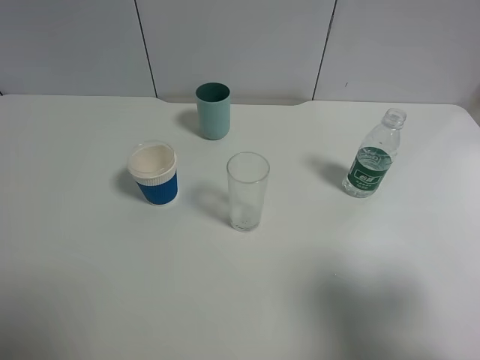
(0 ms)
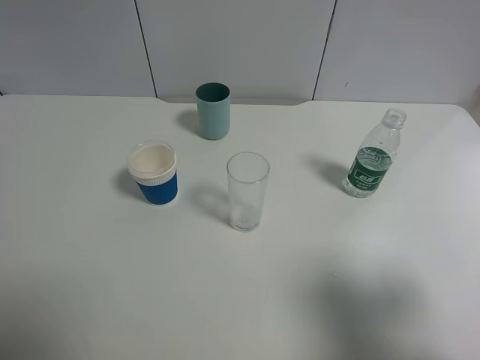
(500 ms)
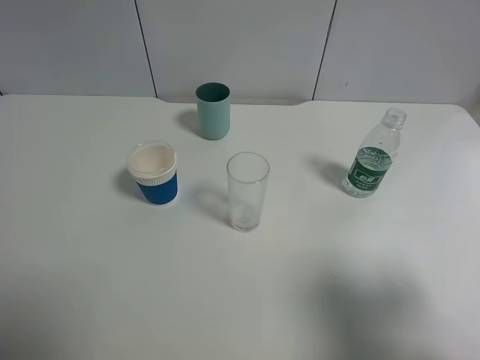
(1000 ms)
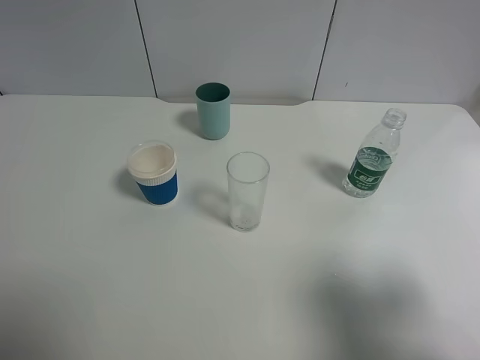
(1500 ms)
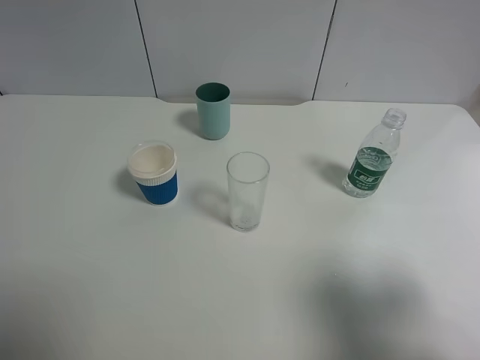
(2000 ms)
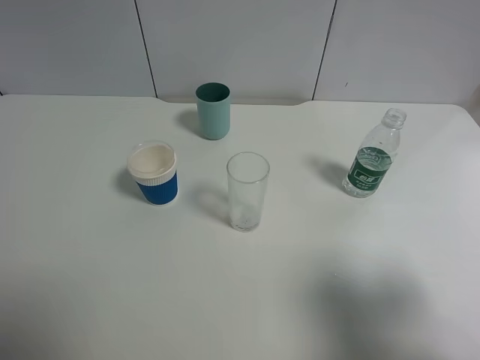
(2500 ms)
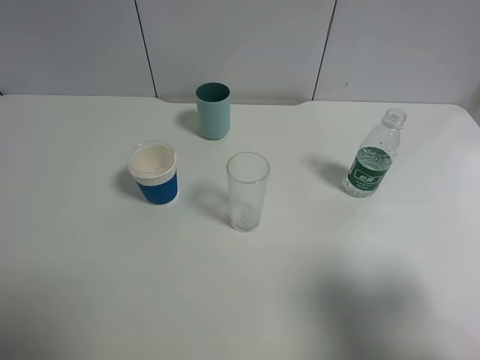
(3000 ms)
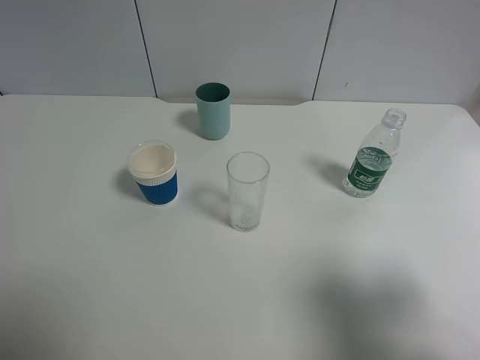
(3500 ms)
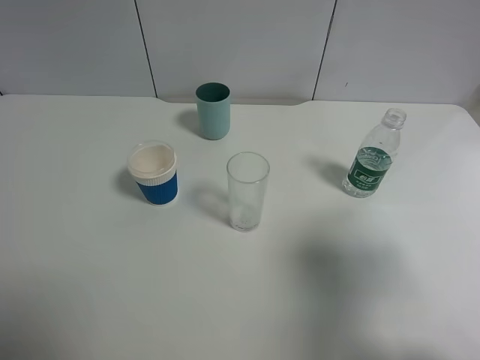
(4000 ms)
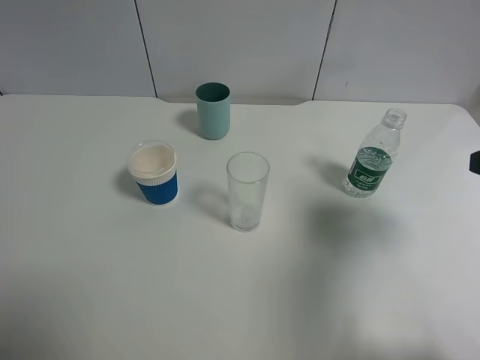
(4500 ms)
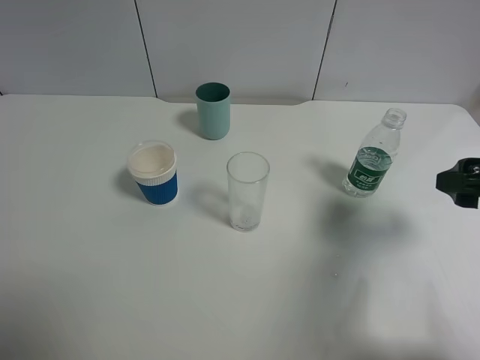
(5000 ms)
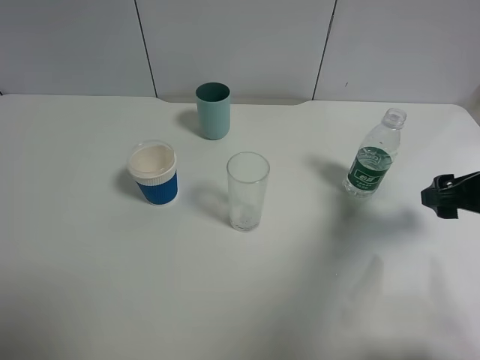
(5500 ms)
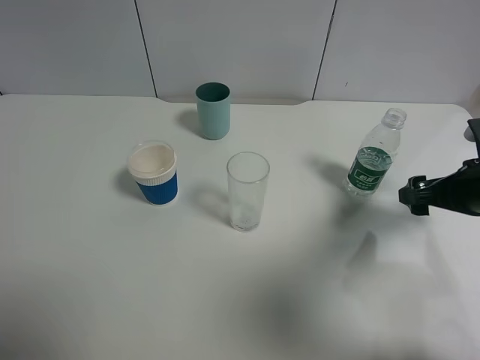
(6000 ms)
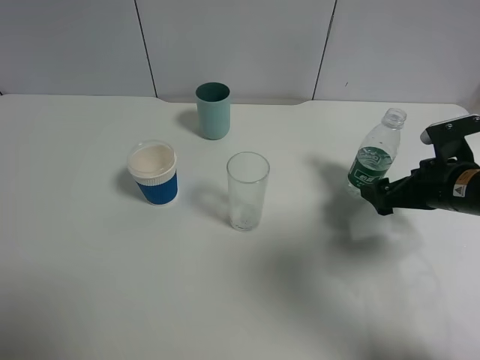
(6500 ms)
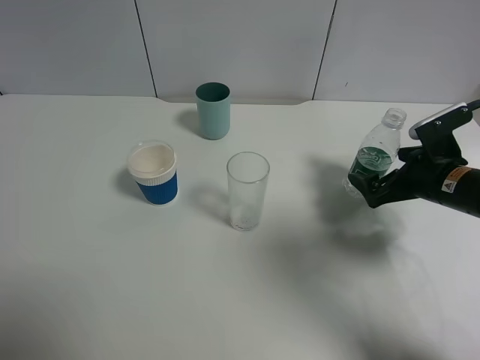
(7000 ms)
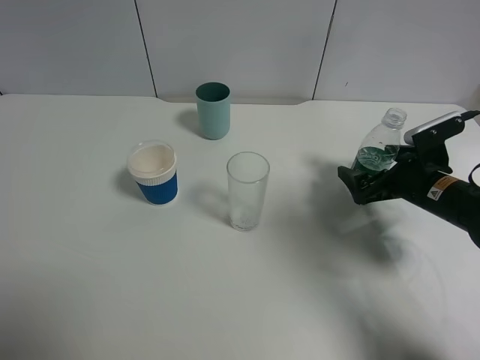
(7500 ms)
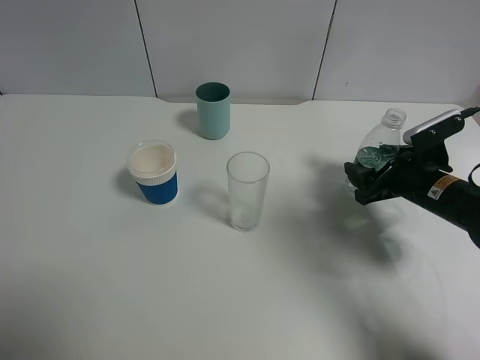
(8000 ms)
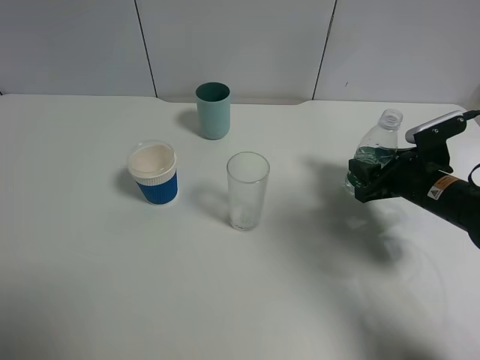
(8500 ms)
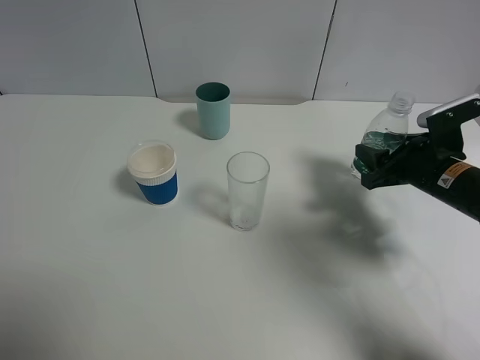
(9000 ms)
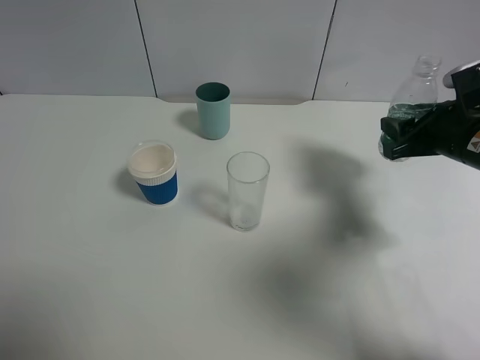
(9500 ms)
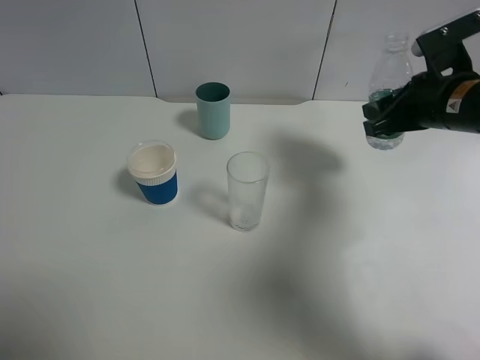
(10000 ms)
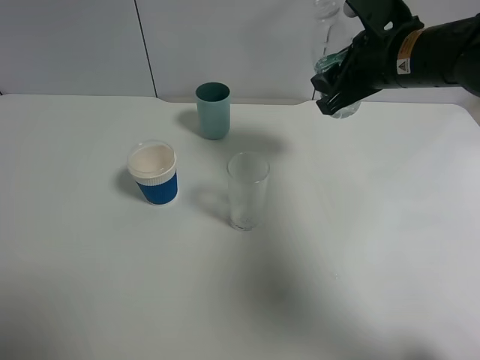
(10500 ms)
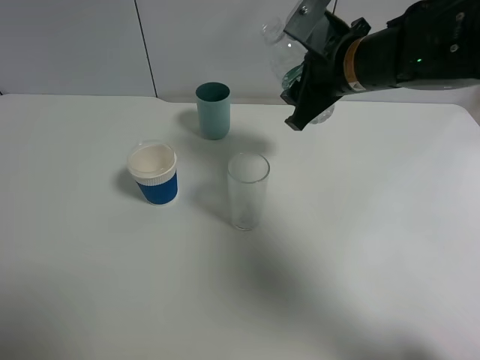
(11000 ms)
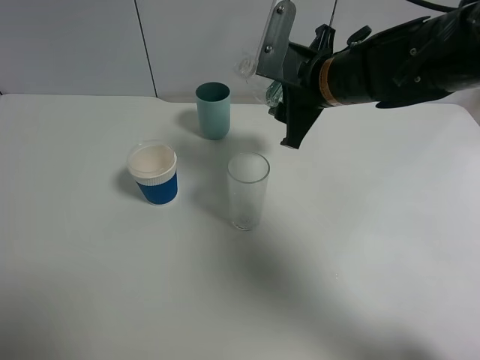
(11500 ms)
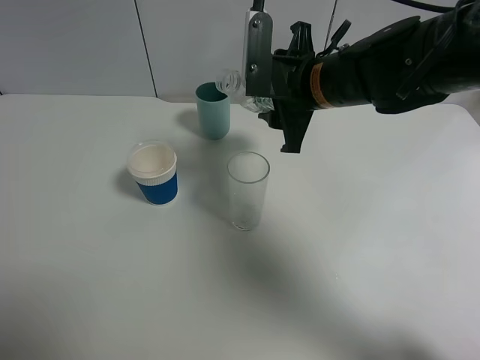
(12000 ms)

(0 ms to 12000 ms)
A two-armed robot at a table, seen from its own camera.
Task of the whole recording: use a gripper to hold the bottle of the drink and pour it into a random cup.
Step, 0 ms - 8000 ms: Grasp the mineral water bottle with the right gripper.
0 ms - 2000 ms: Neither gripper changes place.
2000 ms - 4000 ms: The right gripper goes roughly 5 cm forward.
4000 ms - 6000 ms: The right gripper shifts approximately 20 cm forward and downward.
6000 ms - 8000 ms: The right gripper travels downward by approximately 5 cm, and closes its fingers.
8000 ms - 10000 ms: The right gripper moves upward, some 15 cm.
10000 ms - 12000 ms: The right gripper moves to the left, approximately 15 cm.

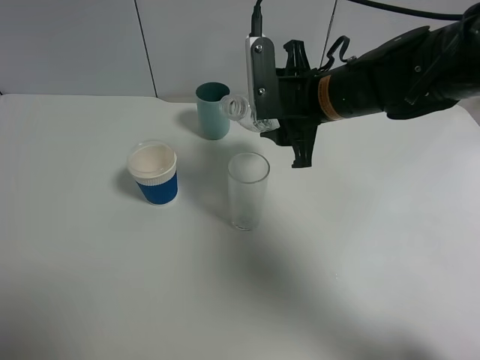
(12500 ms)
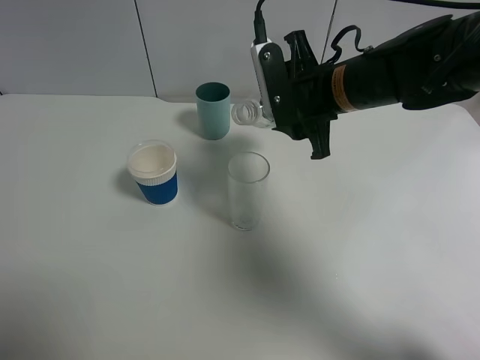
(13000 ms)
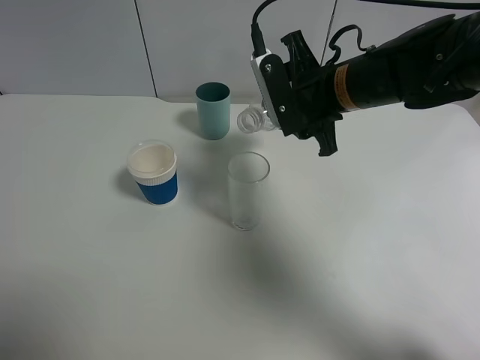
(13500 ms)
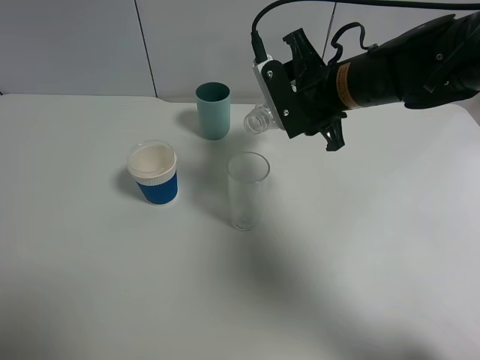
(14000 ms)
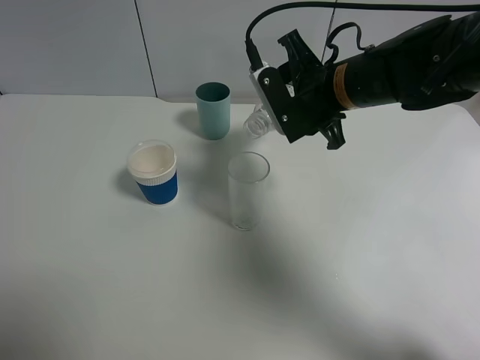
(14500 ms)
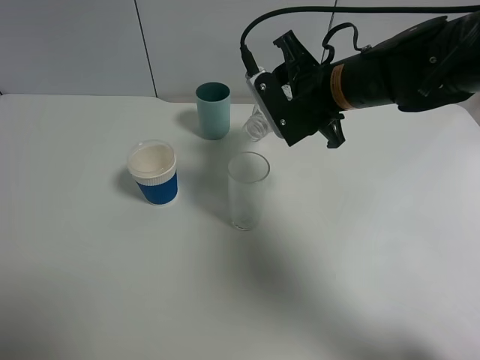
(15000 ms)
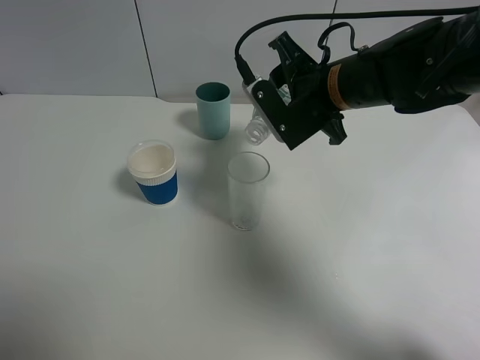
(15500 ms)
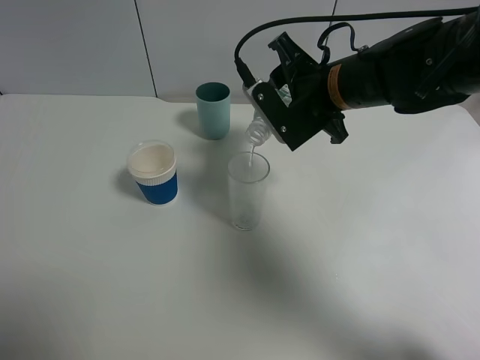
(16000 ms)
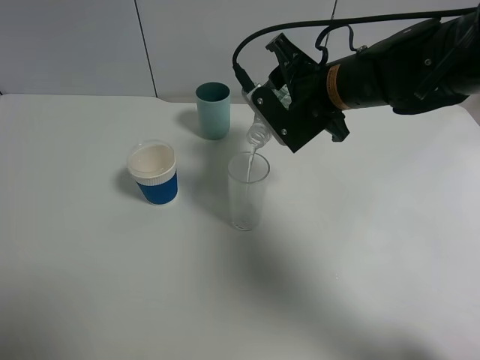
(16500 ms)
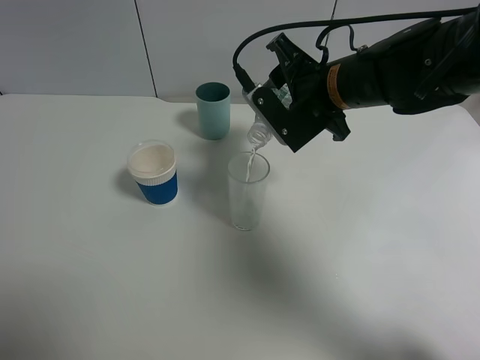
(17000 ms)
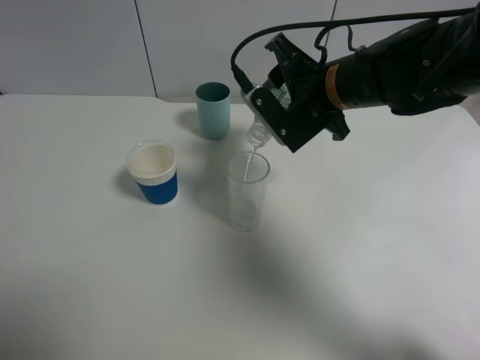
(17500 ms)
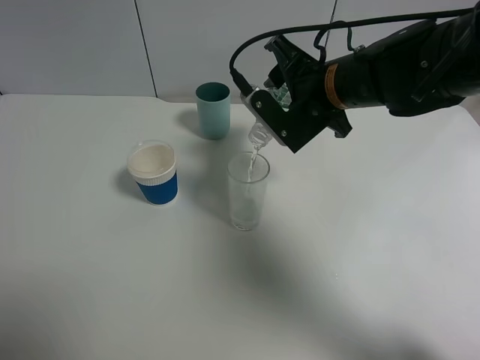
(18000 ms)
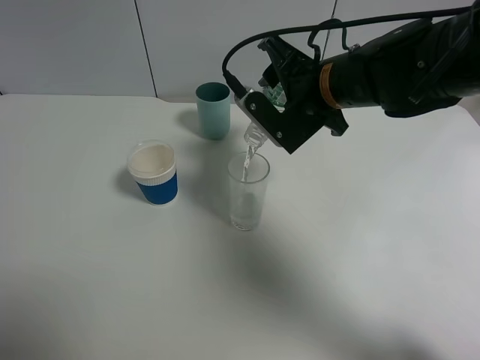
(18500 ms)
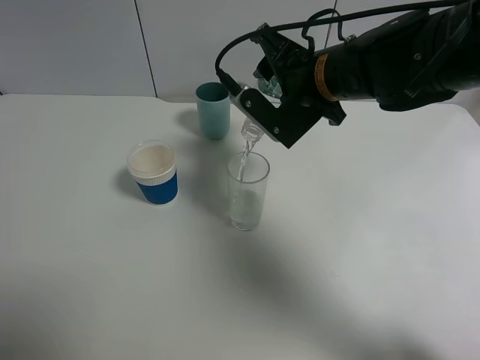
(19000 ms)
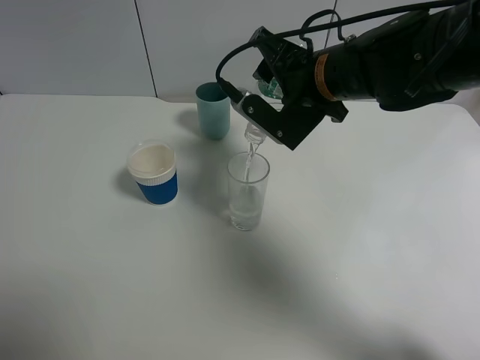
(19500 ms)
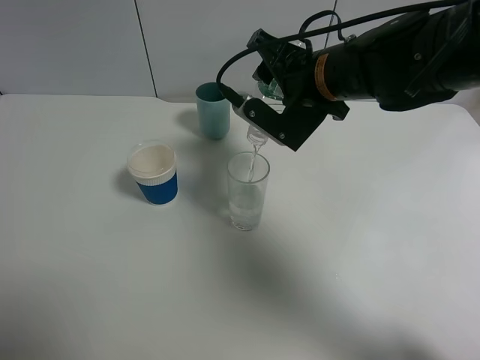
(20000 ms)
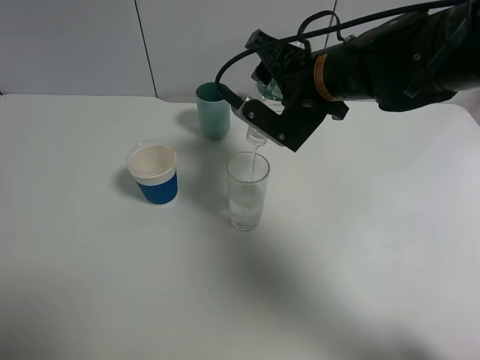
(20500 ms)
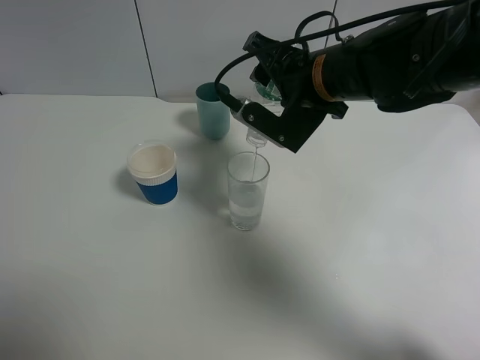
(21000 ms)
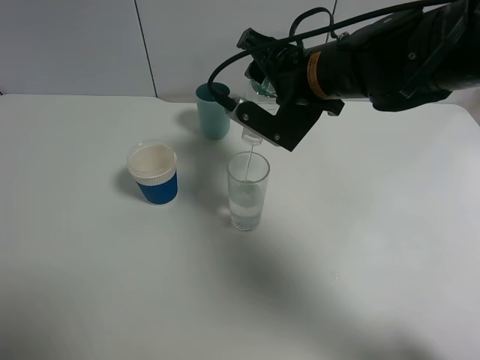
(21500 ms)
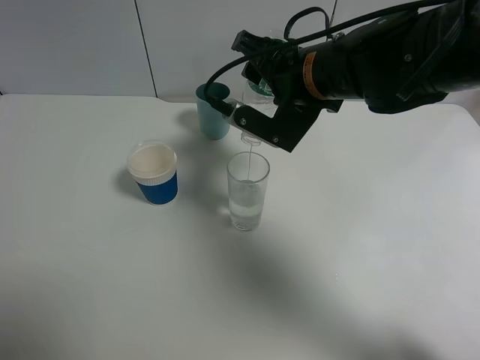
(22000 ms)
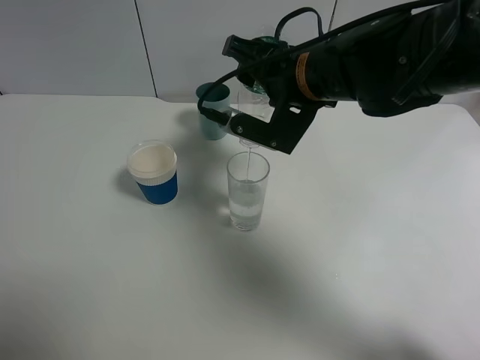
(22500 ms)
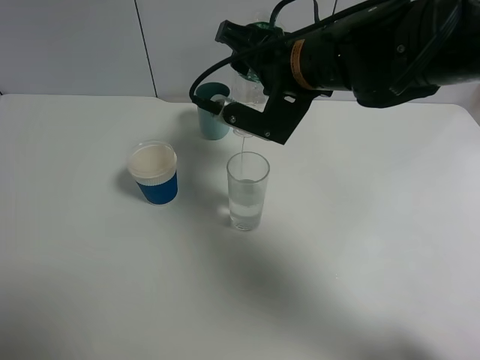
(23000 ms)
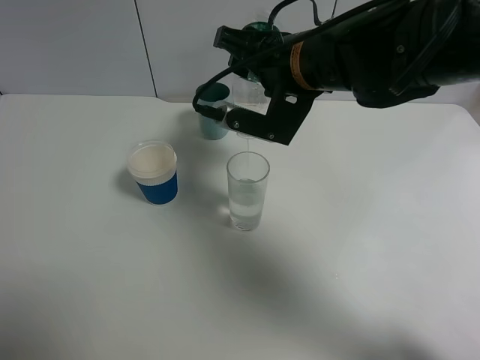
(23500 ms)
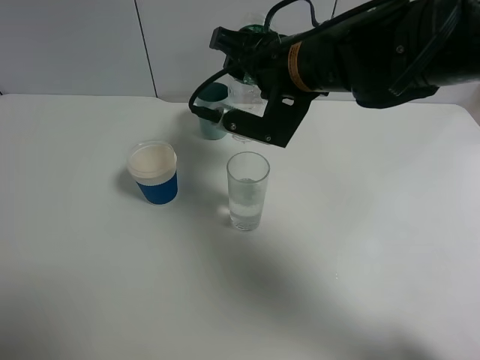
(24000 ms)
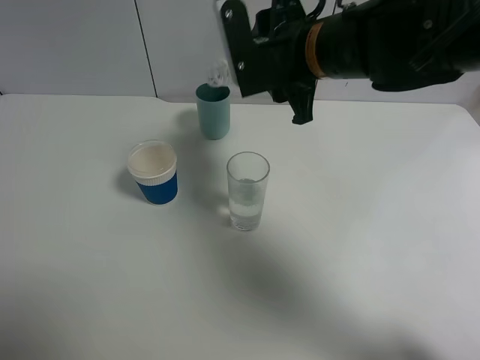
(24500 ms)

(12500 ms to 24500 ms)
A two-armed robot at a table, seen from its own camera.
Task of the whole recording: use a gripper to hold the bottle of the drink and pour it into a random cup.
14500 ms - 18500 ms: The grippers stay close to where they were, moving slightly.
18500 ms - 20500 ms: The grippers make only small movements.
20500 ms - 22500 ms: The grippers stay close to where they were, moving slightly.

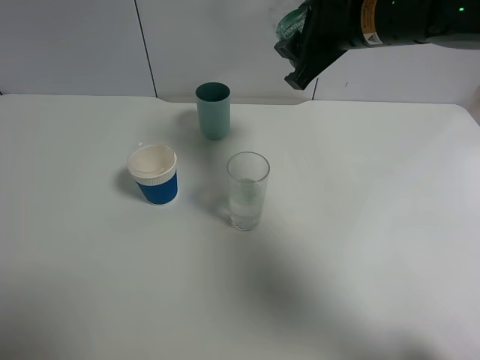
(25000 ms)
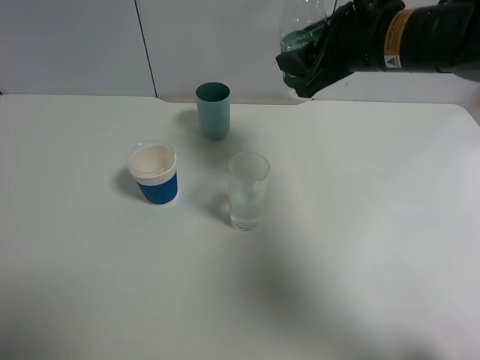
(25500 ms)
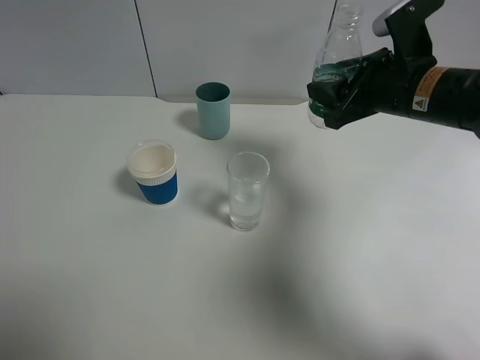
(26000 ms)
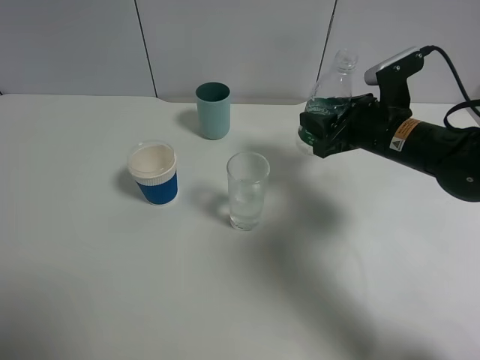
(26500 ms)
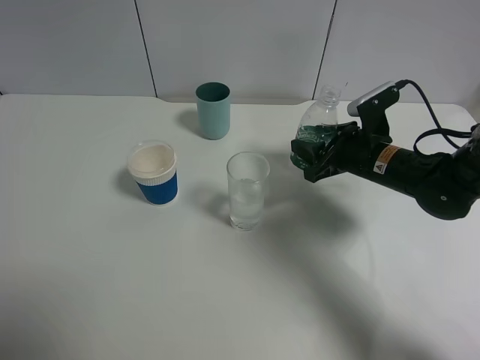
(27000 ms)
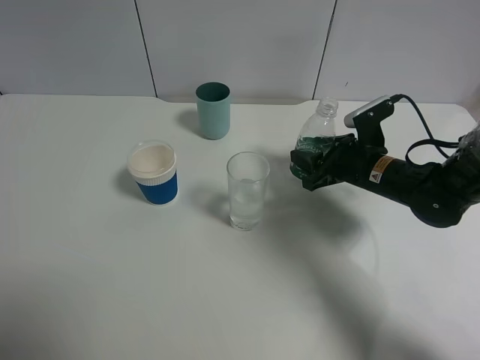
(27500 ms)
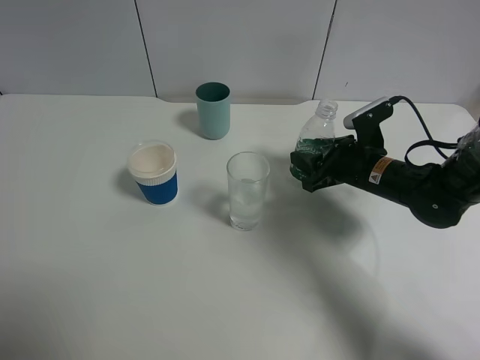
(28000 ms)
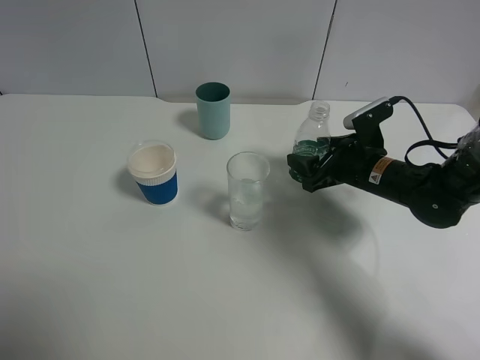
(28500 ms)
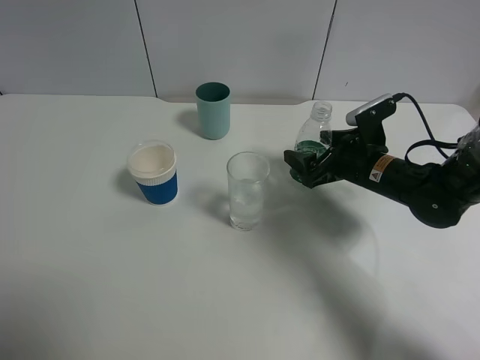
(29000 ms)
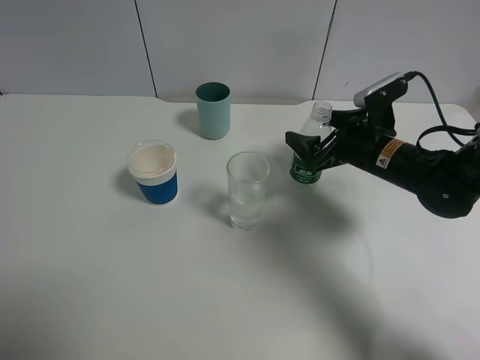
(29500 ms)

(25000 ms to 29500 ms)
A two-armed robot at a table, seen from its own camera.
Task of the whole recording: use a gripper to hold the bottle of the drink and pour it into a random cup.
25000 ms - 27000 ms: The right gripper goes roughly 20 cm downward and to the right.
27000 ms - 29500 ms: The right gripper opens.
